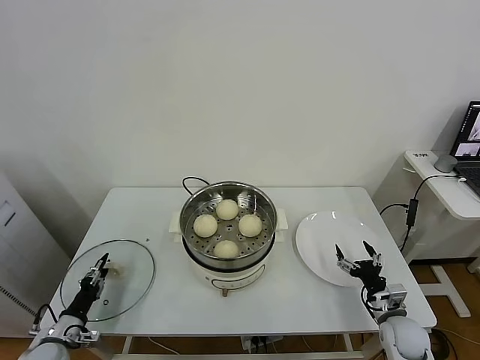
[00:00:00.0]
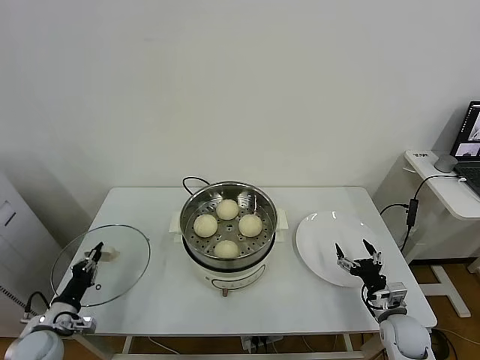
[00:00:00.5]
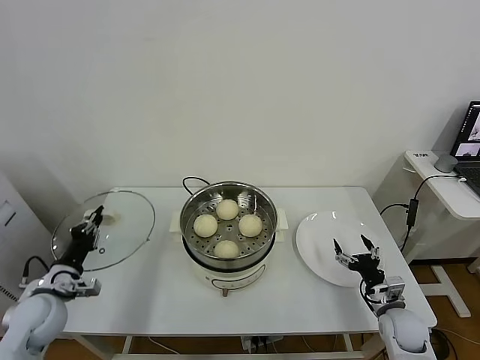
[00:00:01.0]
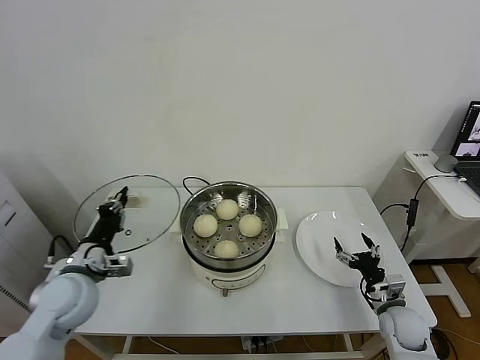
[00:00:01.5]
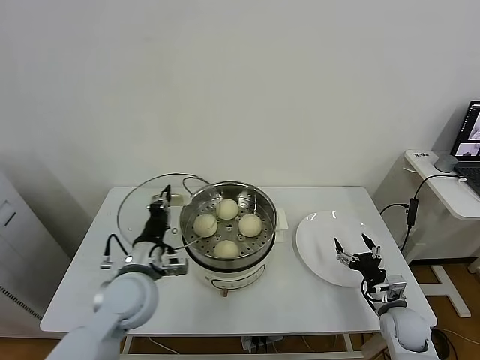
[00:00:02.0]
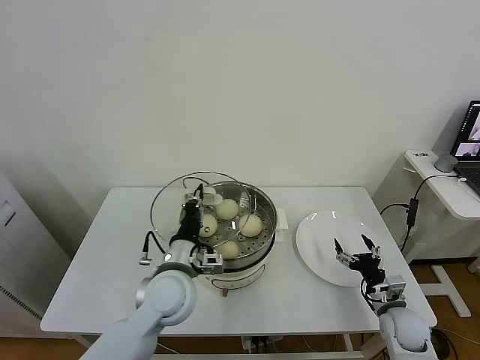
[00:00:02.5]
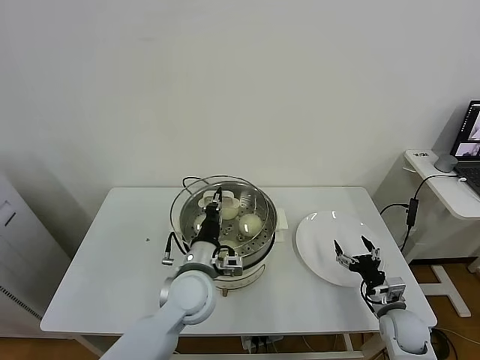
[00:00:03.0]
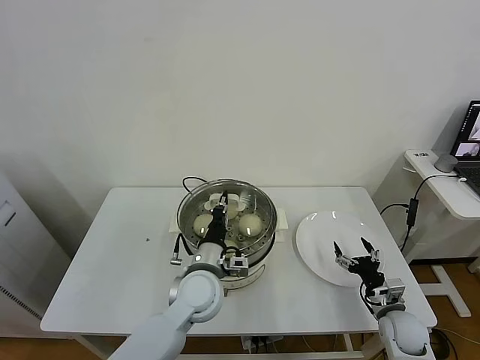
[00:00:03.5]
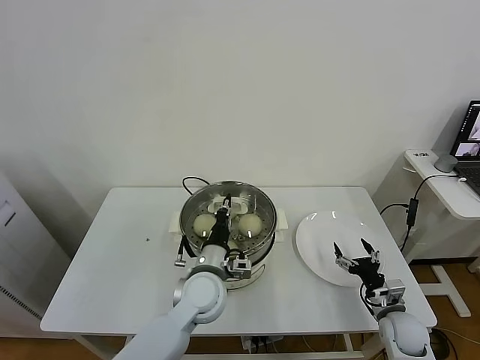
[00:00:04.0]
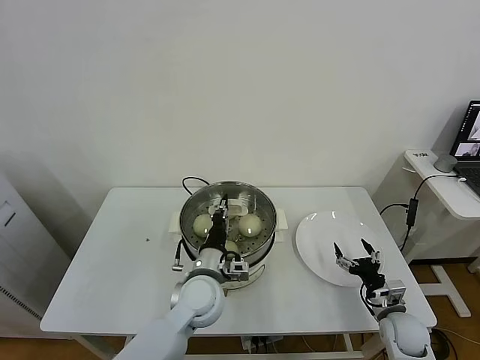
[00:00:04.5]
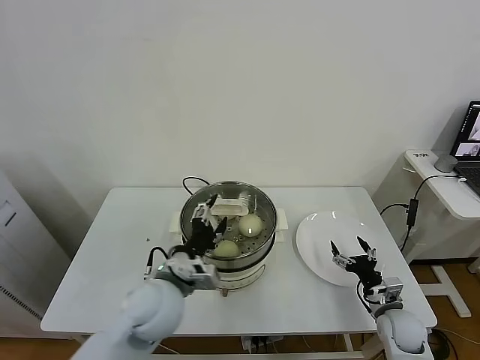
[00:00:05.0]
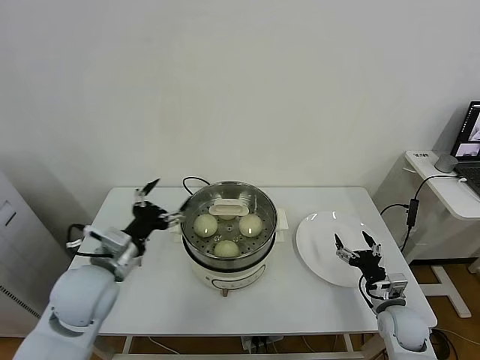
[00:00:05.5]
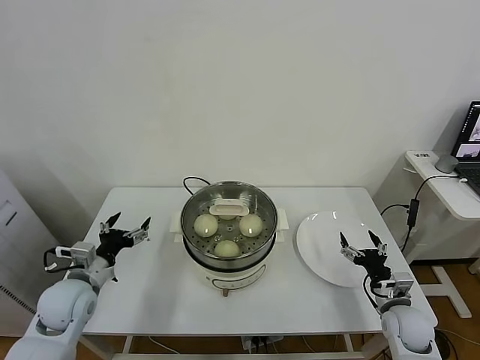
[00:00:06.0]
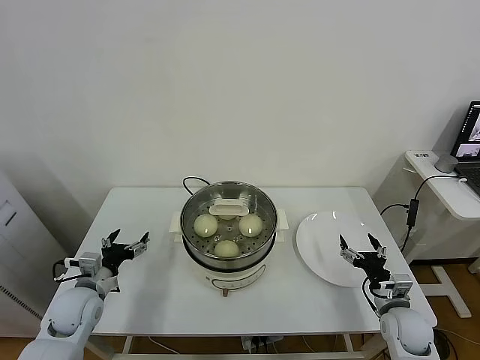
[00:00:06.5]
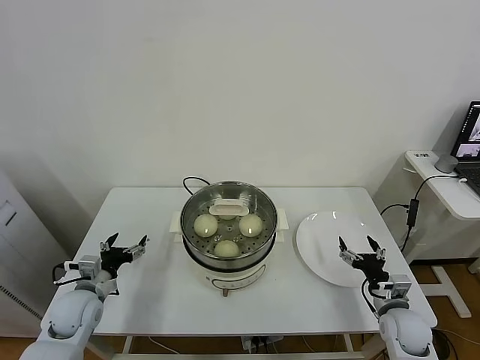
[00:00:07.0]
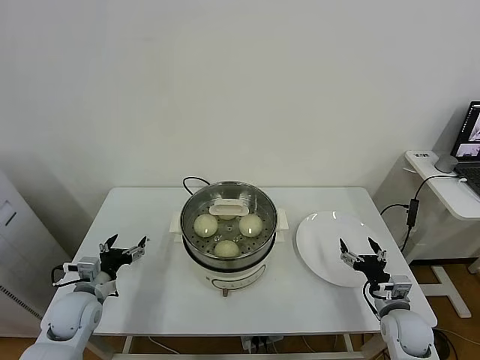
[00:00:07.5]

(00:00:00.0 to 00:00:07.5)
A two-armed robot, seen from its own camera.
Task of the whole recording: take steamed baozi put them in steamer.
Step, 00:00:01.0 - 00:00:05.0: Place the pot lid on the steamer with left gripper.
00:00:00.0 - 00:00:02.0: The left gripper is displaced to the right and upward by some 30 cm, and closes its fingers.
00:00:02.0 - 00:00:04.0: The left gripper goes about 15 cm to the right.
00:00:04.0 - 00:00:05.5: The left gripper moves to the left and upward, some 20 cm, and opens.
00:00:05.5 - 00:00:07.5: The left gripper goes approximately 20 cm downward and to the left.
